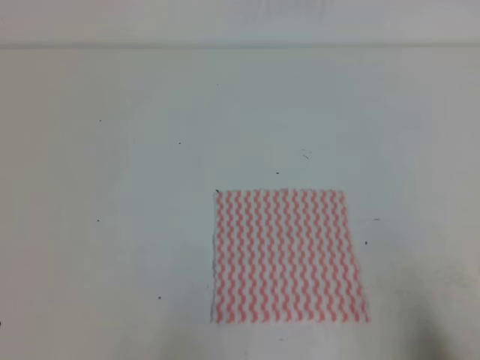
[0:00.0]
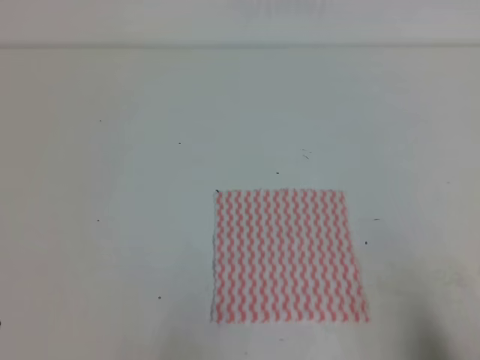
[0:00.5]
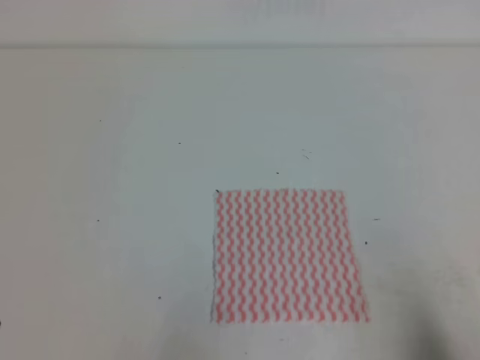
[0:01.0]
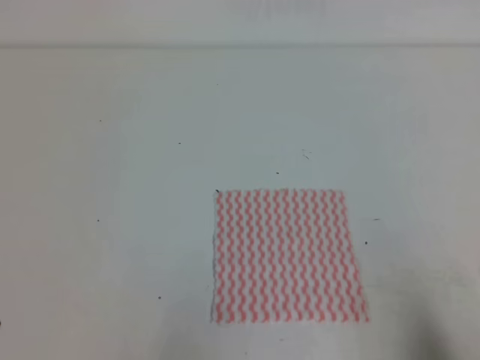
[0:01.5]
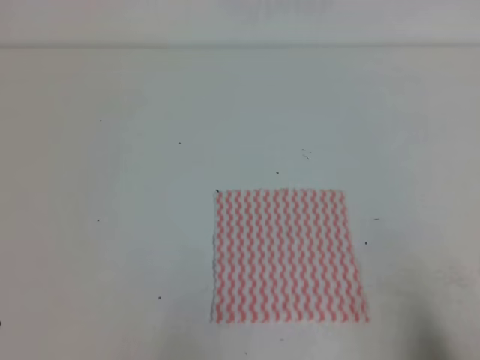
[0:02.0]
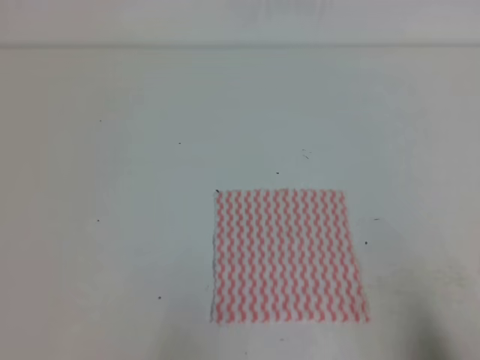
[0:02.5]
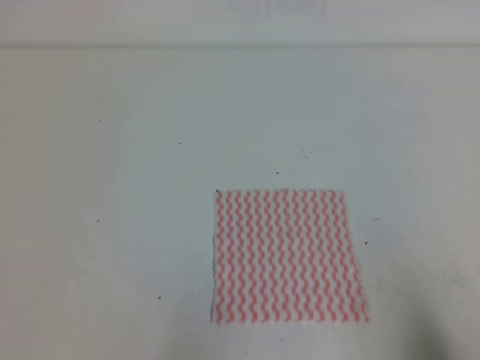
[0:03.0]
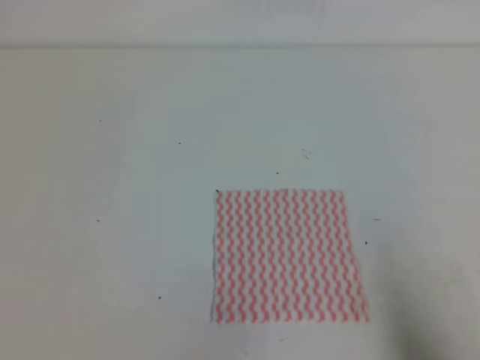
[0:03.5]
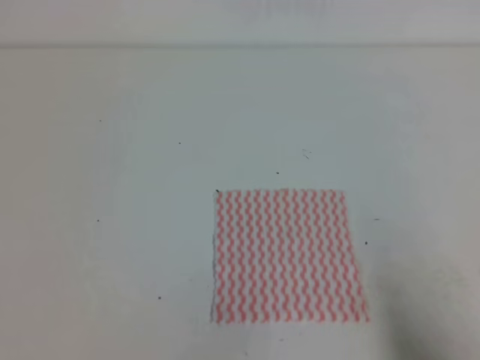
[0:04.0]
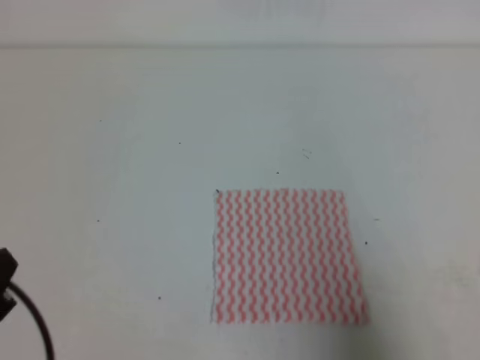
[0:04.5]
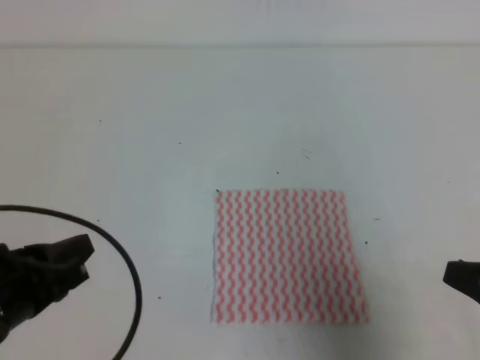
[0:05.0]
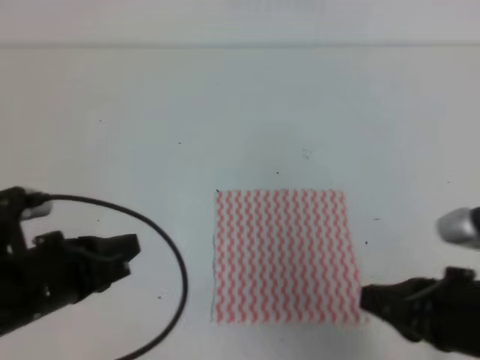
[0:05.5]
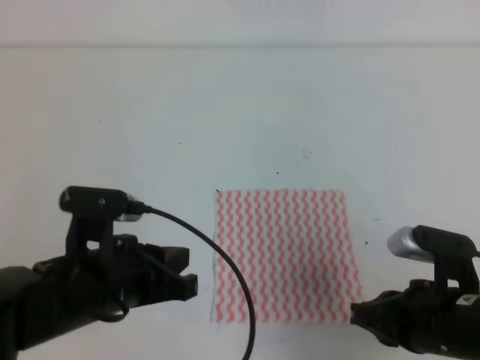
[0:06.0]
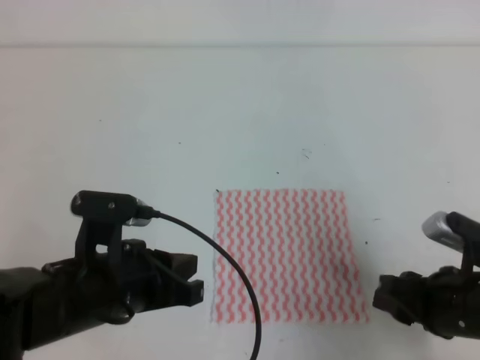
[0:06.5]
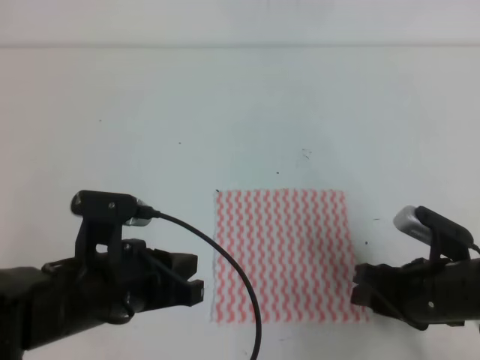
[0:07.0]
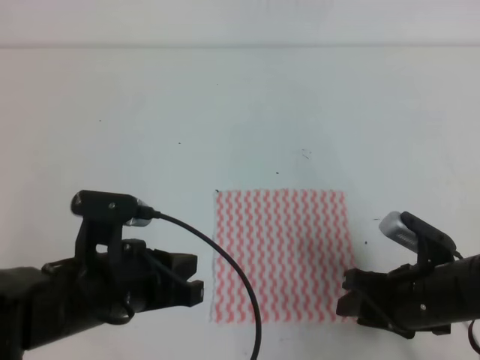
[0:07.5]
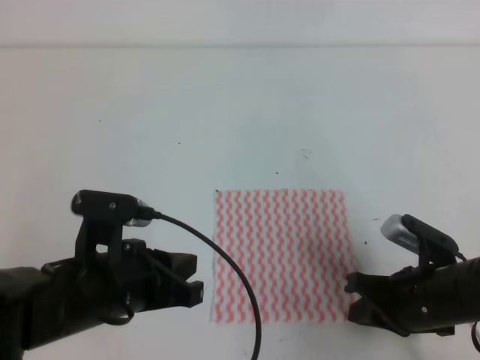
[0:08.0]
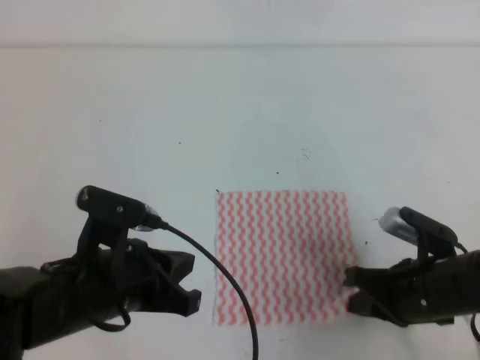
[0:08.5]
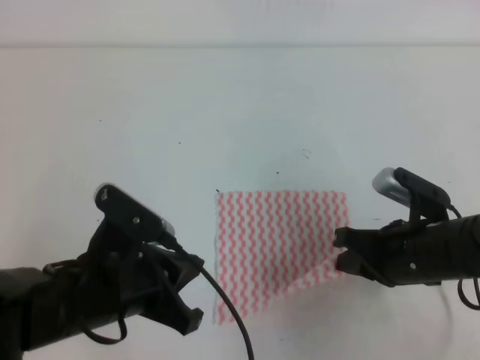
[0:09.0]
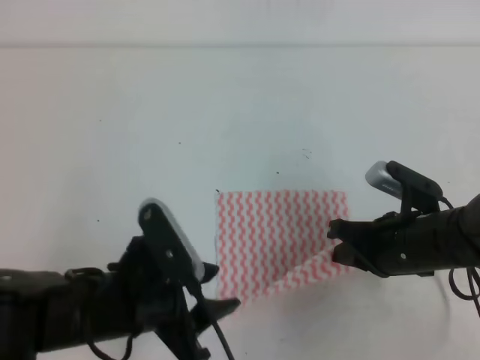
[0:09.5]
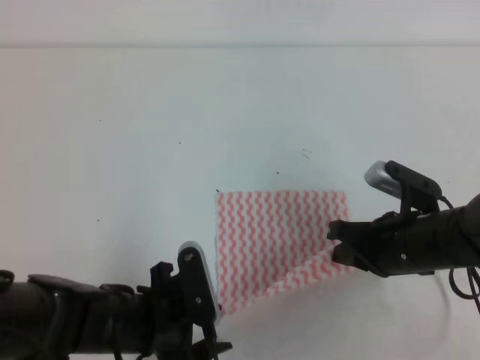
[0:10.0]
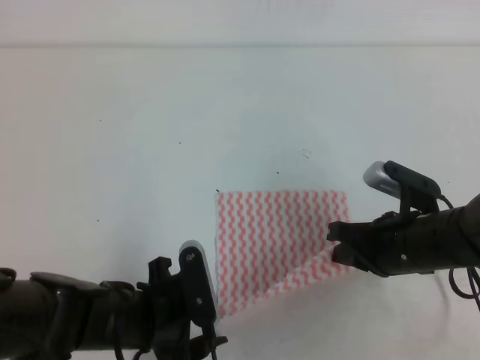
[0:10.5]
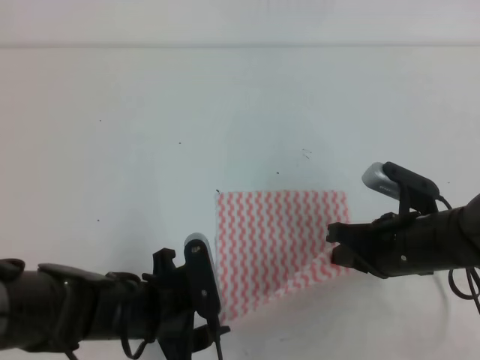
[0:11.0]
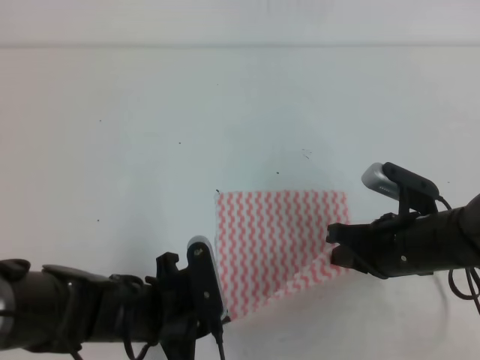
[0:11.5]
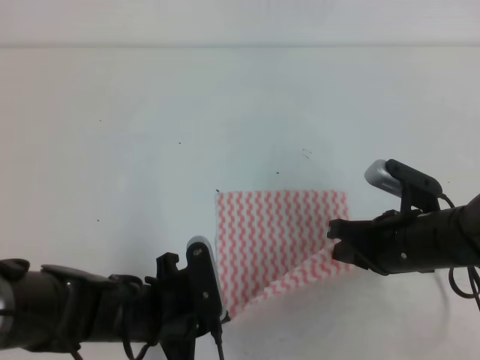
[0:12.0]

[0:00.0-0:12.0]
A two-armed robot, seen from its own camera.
0:00.0 to 0:02.0: The two grippers keep their place.
0:04.0 to 0:06.0: The right gripper shifts some 15 cm to the left and forward. The left gripper is displaced to the right and forward by about 20 cm.
0:06.0 to 0:08.0: The right gripper shifts approximately 5 cm downward, and opens, then closes again.
0:08.0 to 0:10.0: The left gripper goes some 5 cm downward, and opens up. The right gripper moves some 5 cm.
0:10.0 to 0:12.0: The left gripper closes its fingers.

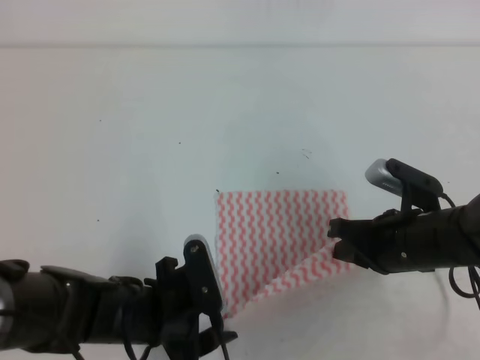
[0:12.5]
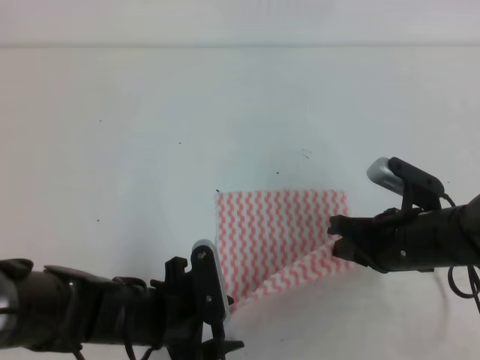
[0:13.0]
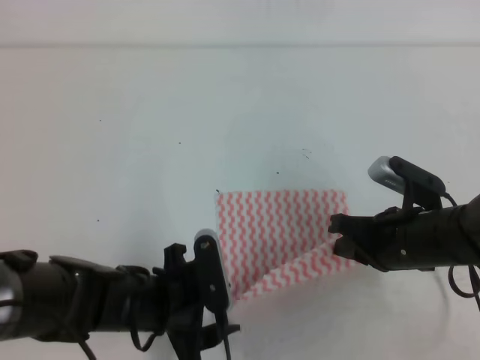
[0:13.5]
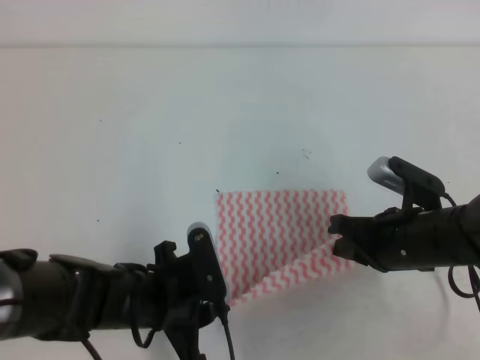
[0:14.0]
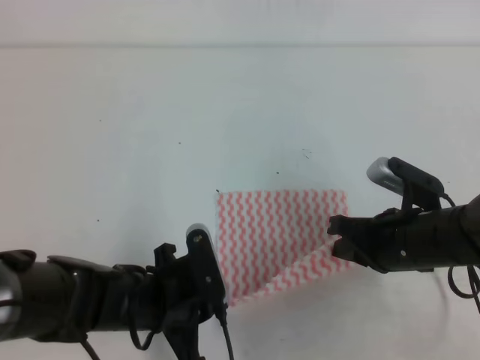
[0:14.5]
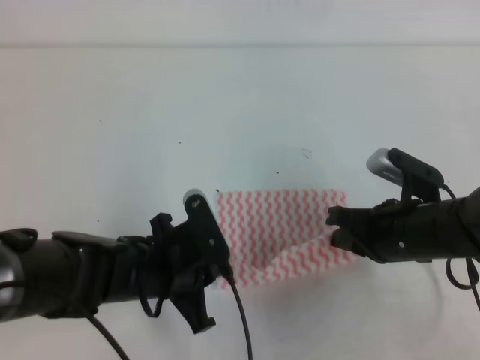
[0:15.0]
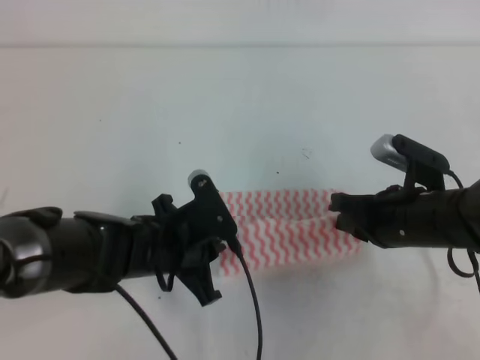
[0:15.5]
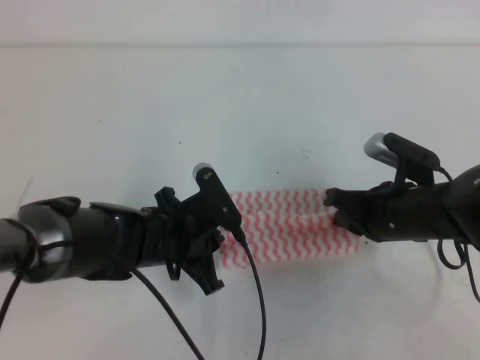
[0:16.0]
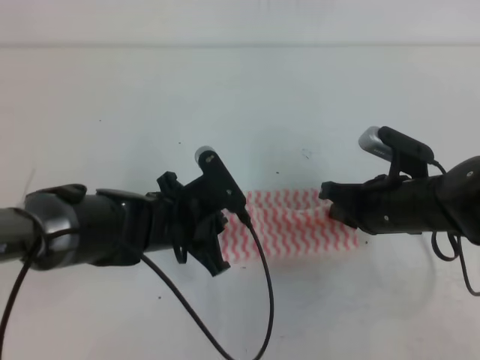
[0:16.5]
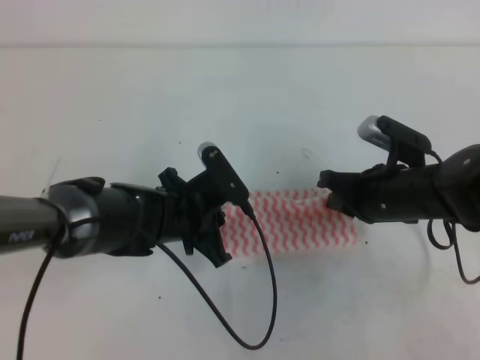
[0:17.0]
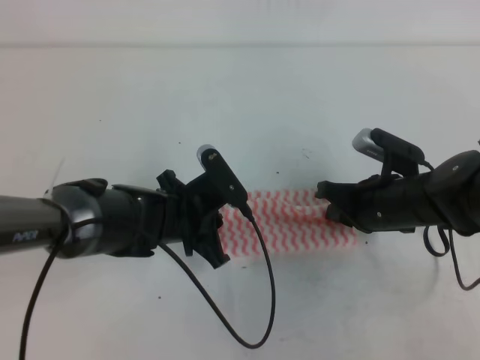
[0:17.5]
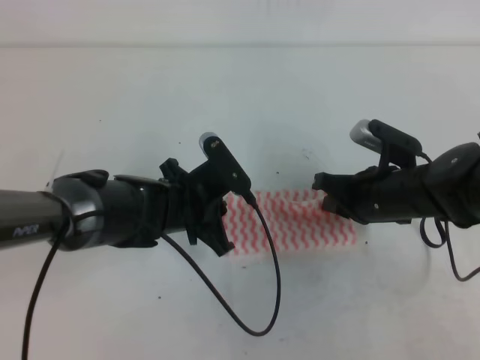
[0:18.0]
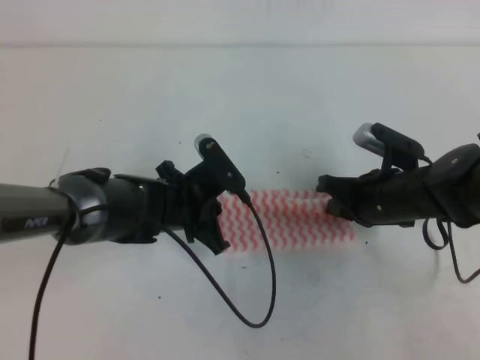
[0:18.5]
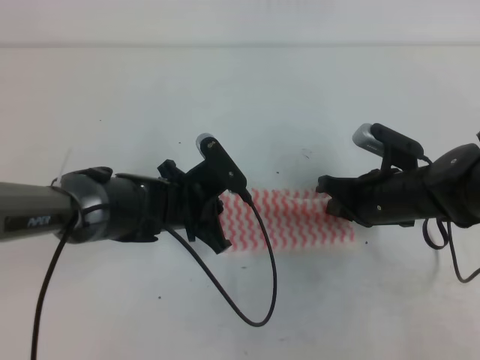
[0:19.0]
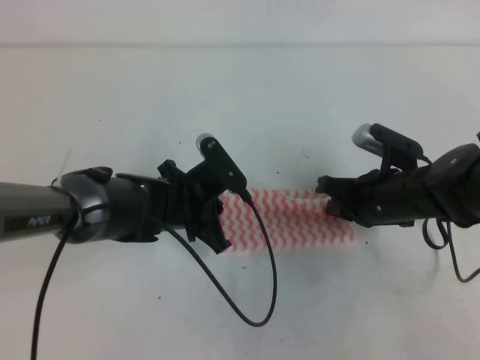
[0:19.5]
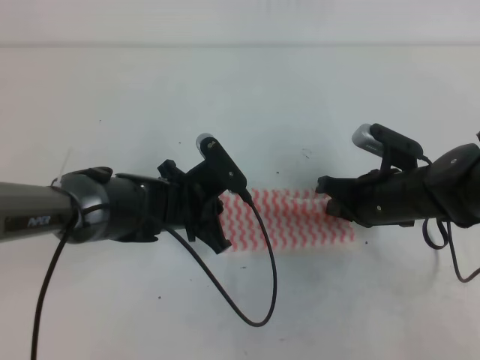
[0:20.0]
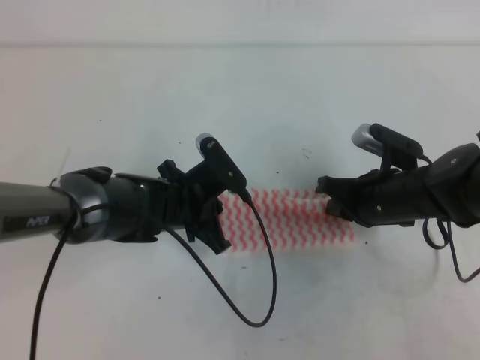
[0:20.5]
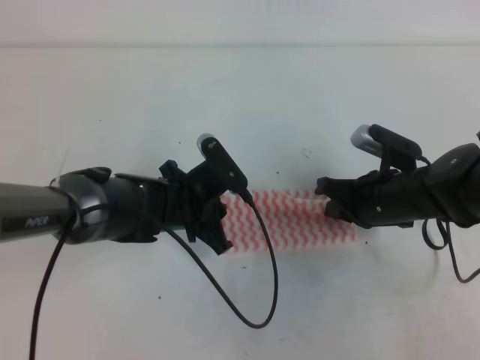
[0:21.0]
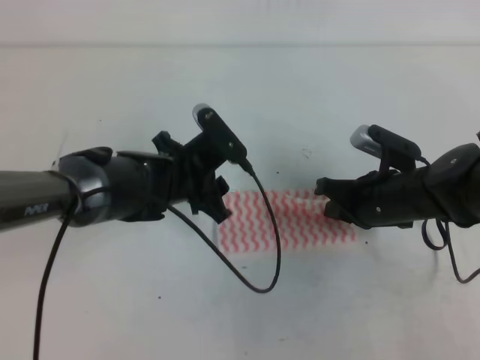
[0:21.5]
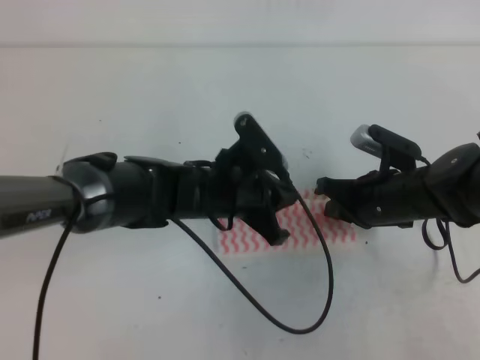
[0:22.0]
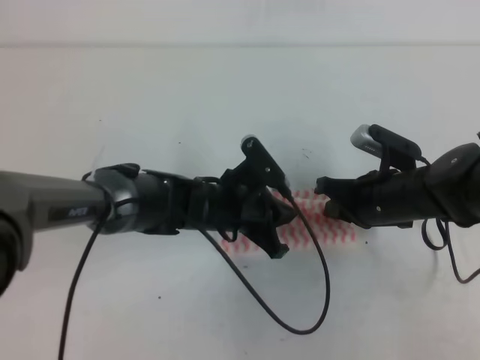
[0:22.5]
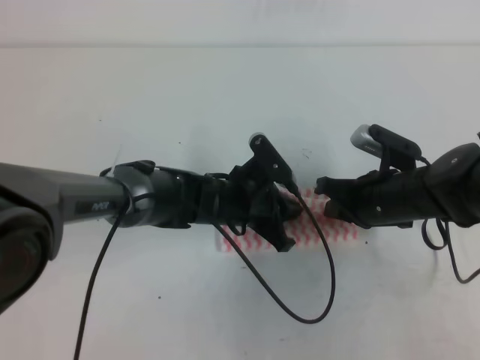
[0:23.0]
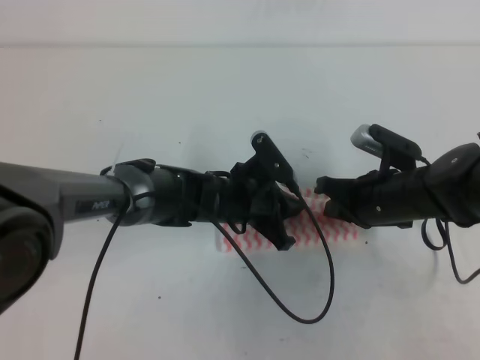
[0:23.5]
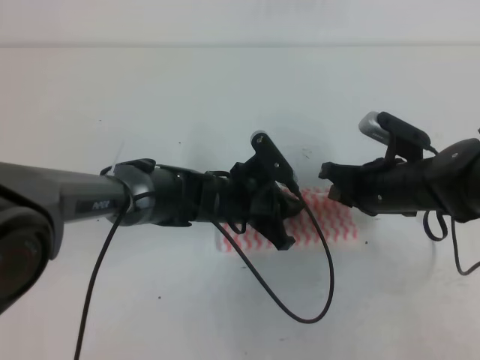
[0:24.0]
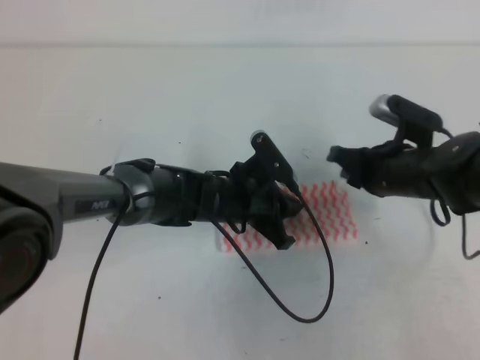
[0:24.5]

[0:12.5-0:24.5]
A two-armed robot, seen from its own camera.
0:12.5 to 0:14.5: The left gripper closes up.
0:14.5 to 0:16.5: The left gripper moves forward, some 10 cm.
0:16.5 to 0:18.5: The grippers stay close to where they were, moving slightly.
0:18.5 to 0:20.5: Both grippers stay about where they are.
0:20.5 to 0:22.5: The left gripper travels to the right by some 5 cm, and opens and closes again.
0:22.5 to 0:24.5: There are only small adjustments of the grippers.

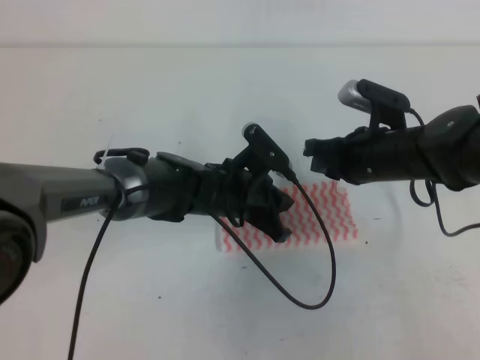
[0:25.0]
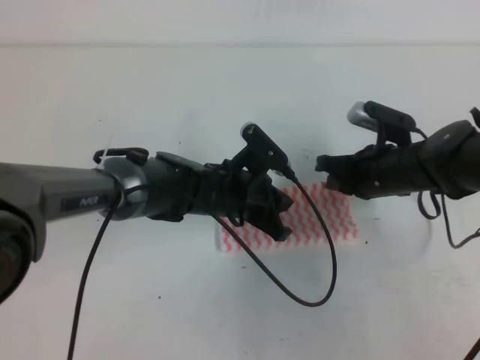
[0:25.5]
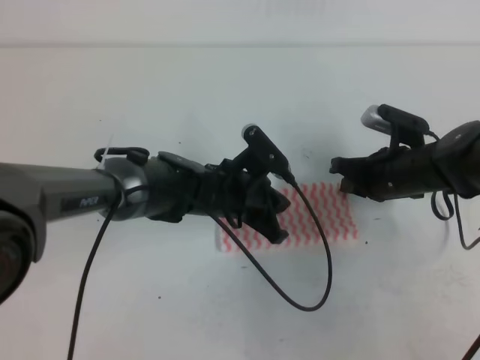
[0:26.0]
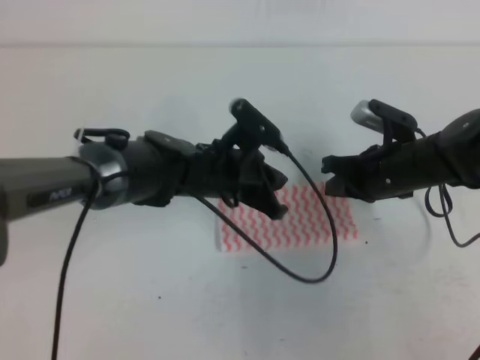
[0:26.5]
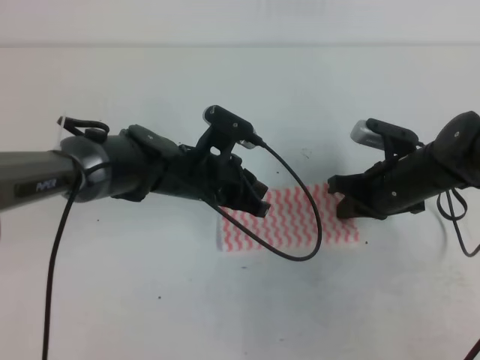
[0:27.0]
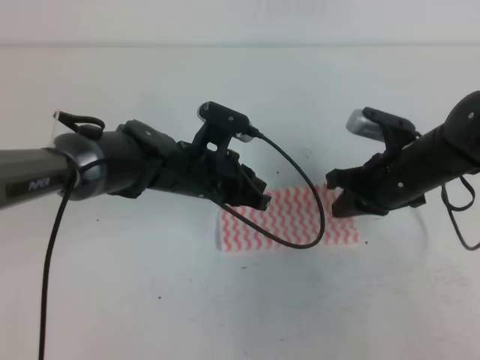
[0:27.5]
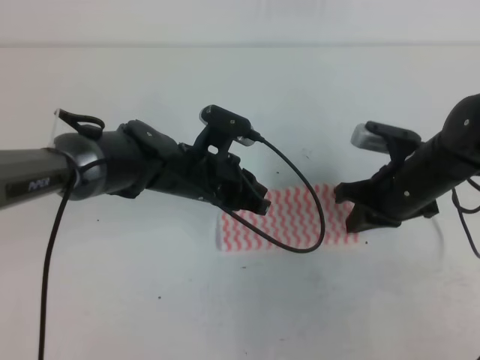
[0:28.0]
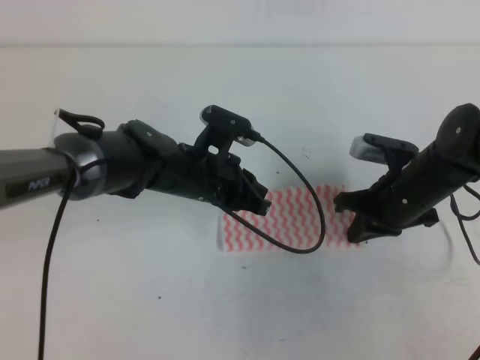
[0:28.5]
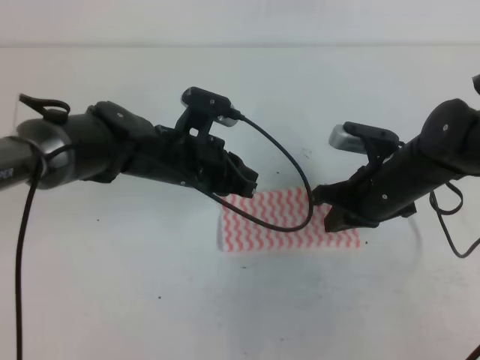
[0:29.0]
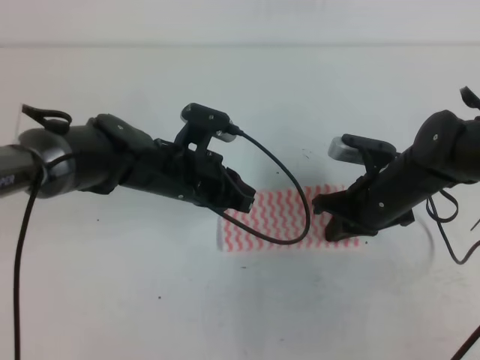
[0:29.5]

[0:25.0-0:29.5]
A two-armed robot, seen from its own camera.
0:27.0 to 0:29.5: There are only small adjustments of the grippers.
